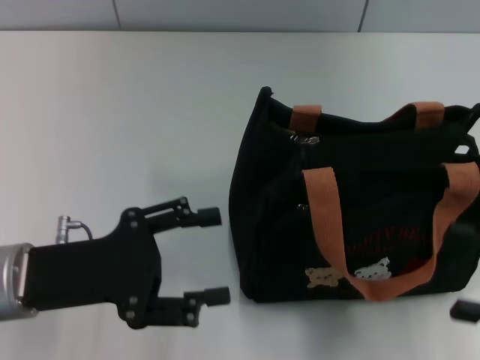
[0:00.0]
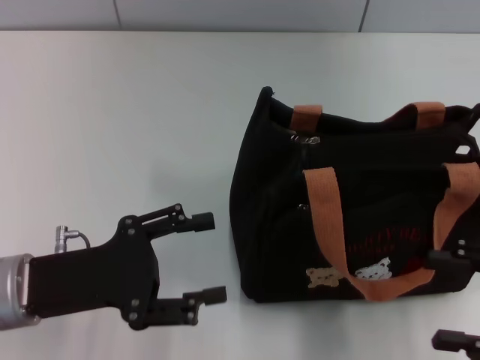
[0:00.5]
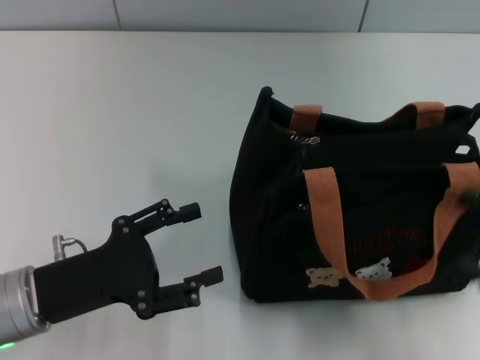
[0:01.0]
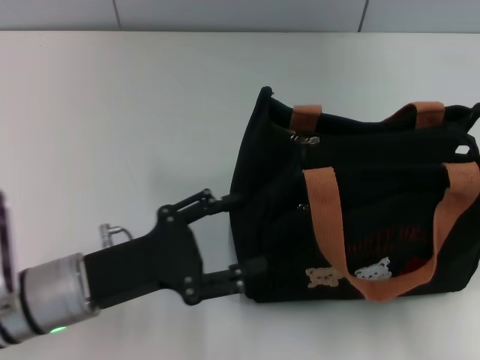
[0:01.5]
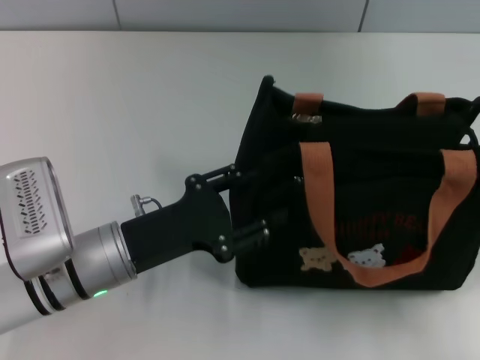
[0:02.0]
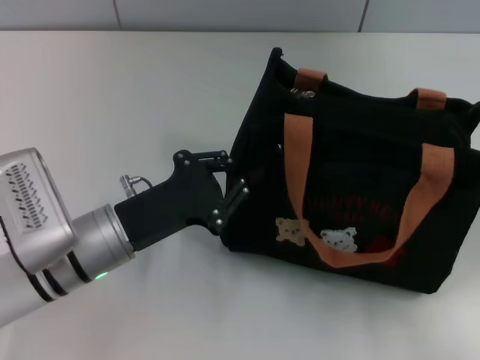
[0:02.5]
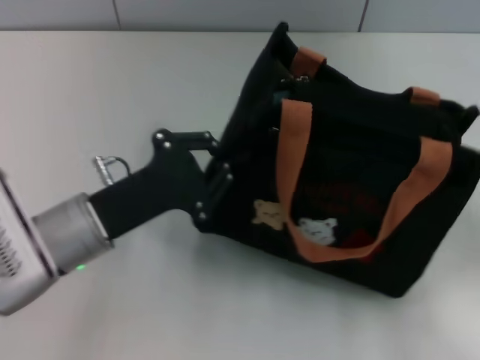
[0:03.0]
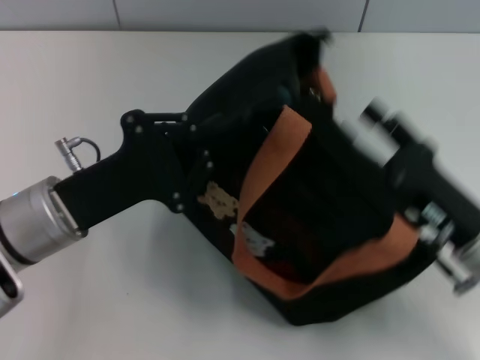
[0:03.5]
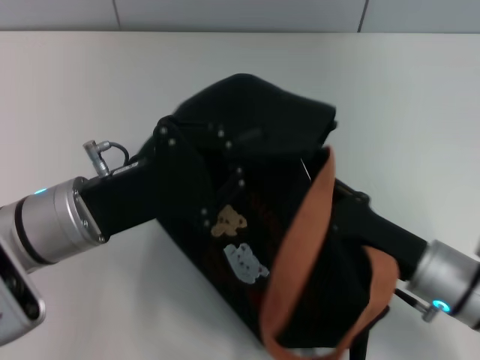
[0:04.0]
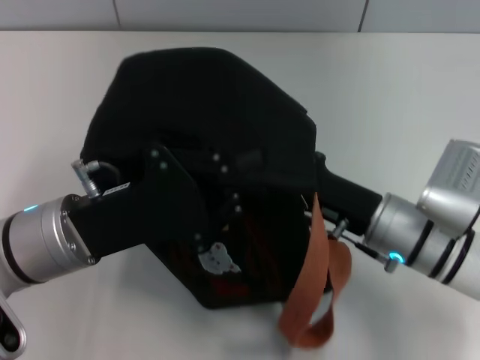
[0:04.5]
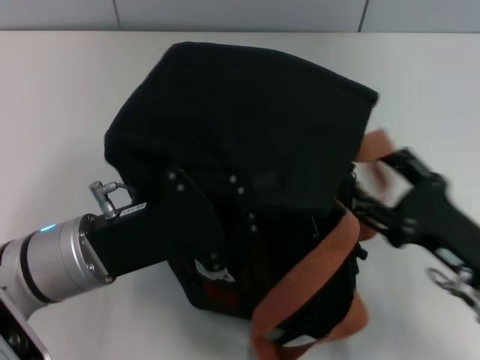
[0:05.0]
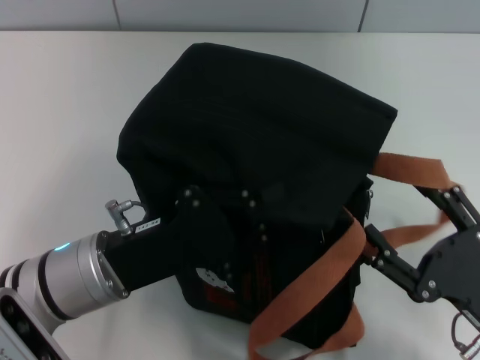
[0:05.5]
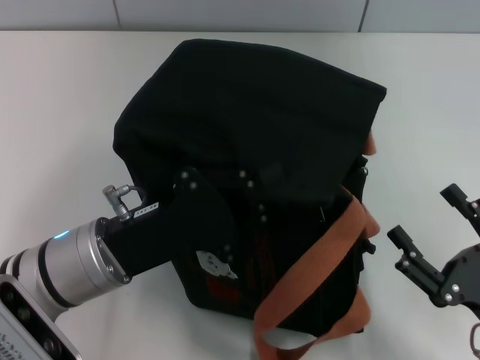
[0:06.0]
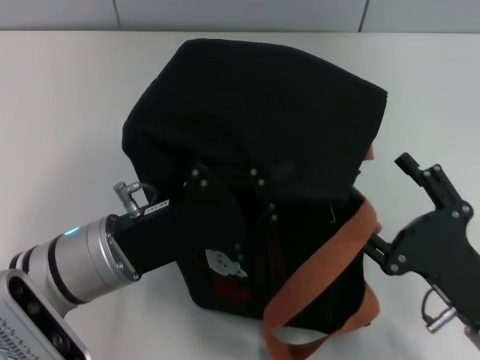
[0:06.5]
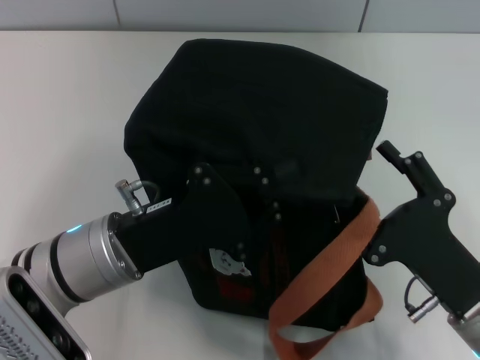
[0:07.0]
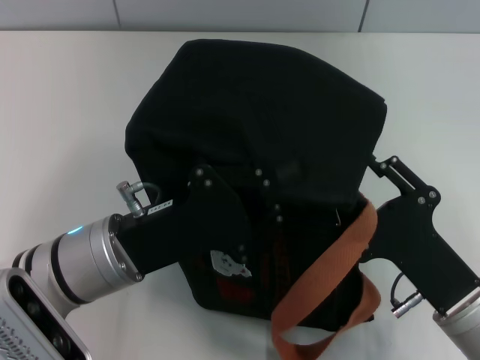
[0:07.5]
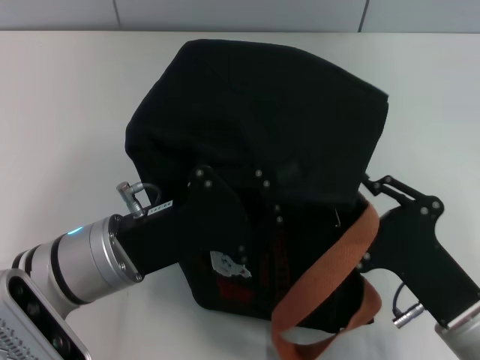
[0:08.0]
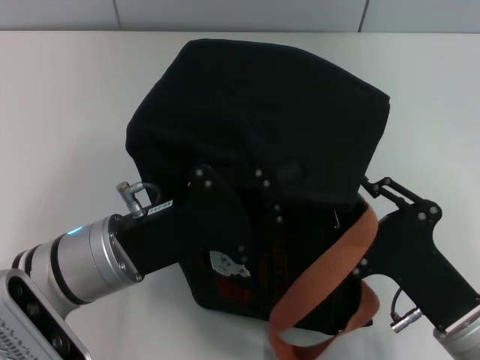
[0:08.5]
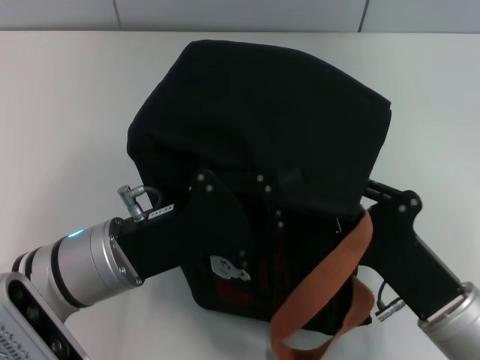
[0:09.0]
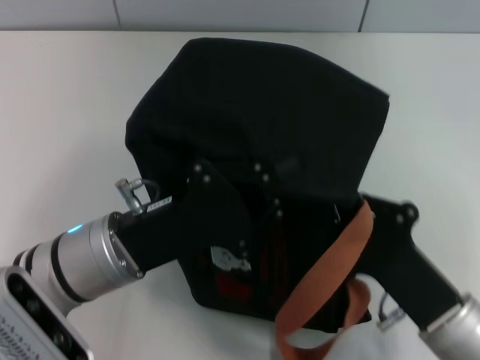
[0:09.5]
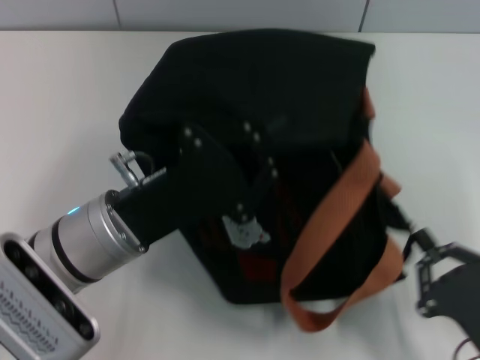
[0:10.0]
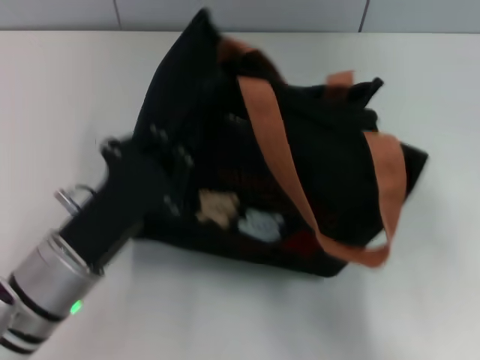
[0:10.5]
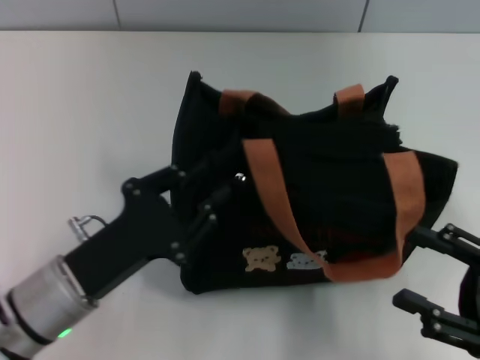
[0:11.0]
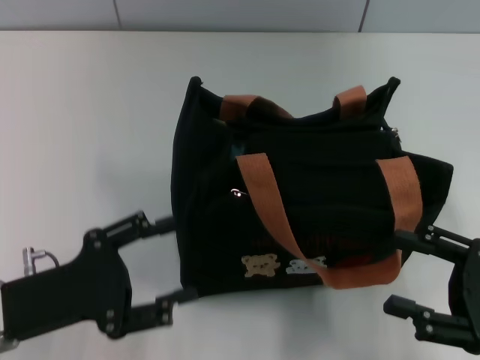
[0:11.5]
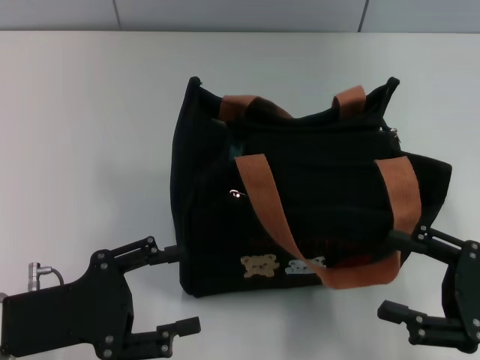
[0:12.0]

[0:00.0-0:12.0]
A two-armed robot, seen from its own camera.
Step, 0.0 to 10.0 s: Pull open the zipper with your right hand.
Step, 10.5 to 11.0 s: Grab the bag with your left hand.
0.0 to 2.0 s: The left gripper moves to the right, some 5 cm.
2.0 to 4.0 s: The left gripper is displaced upward by some 5 cm, and closes up, while the right gripper goes about 20 cm to the left, downward and forward.
4.0 to 6.0 s: The right gripper goes some 10 cm backward and to the right.
6.0 to 8.0 s: The right gripper moves to the left, some 5 cm, and closes up.
8.0 to 10.0 s: The right gripper shifts some 5 cm backward.
10.0 to 12.0 s: The left gripper goes some 10 cm to the left and backward, and opens; the right gripper shifts approximately 10 cm forward, upward and to the right, and opens its fingers.

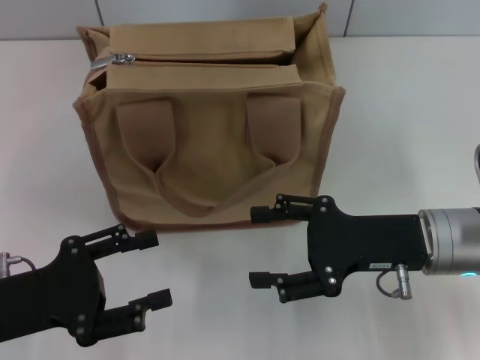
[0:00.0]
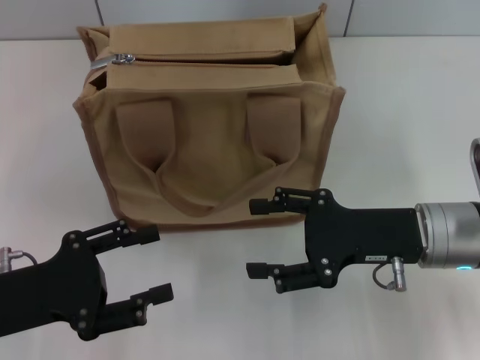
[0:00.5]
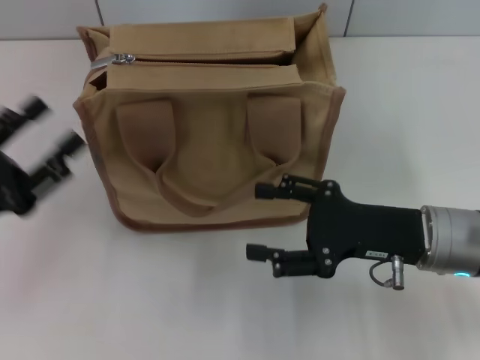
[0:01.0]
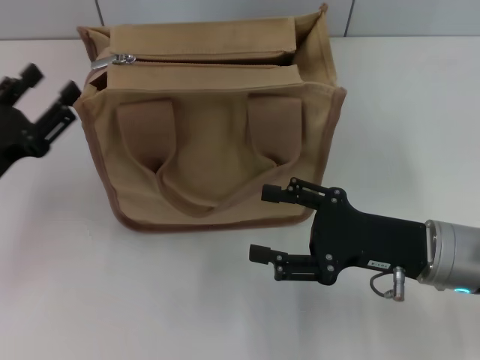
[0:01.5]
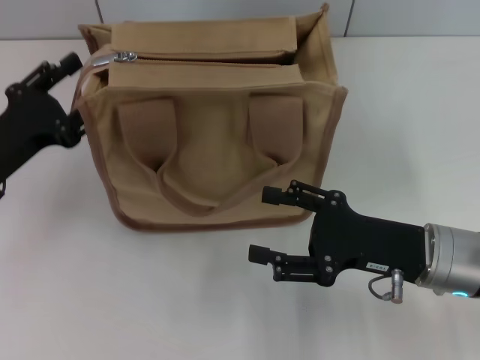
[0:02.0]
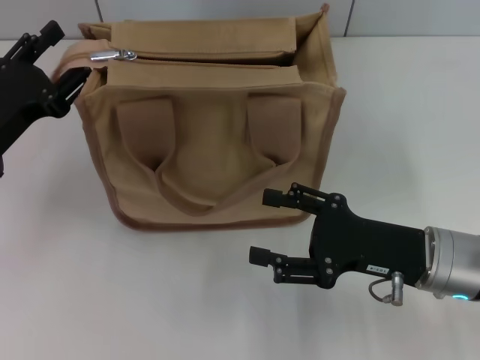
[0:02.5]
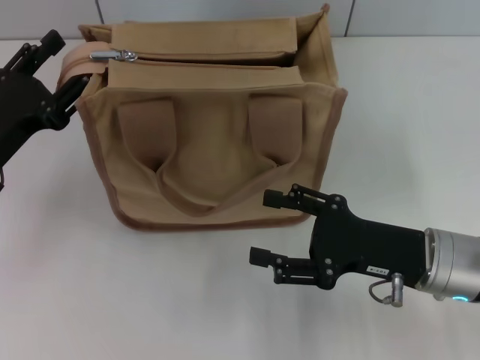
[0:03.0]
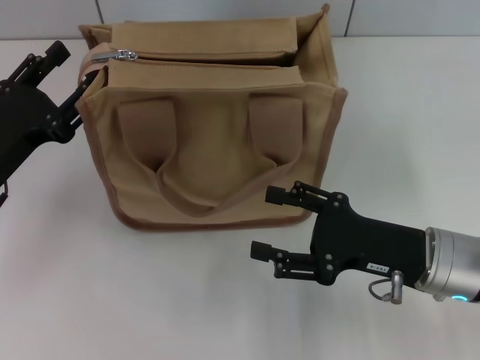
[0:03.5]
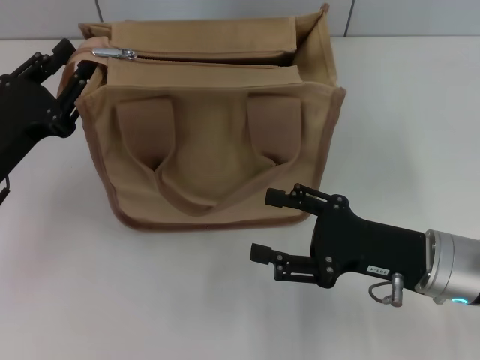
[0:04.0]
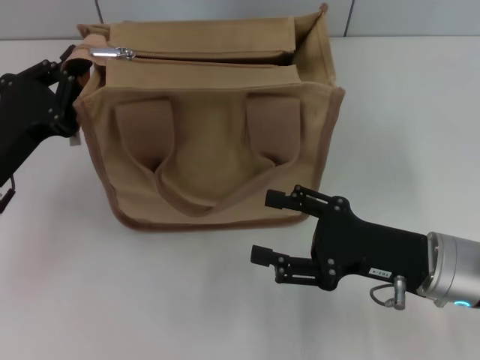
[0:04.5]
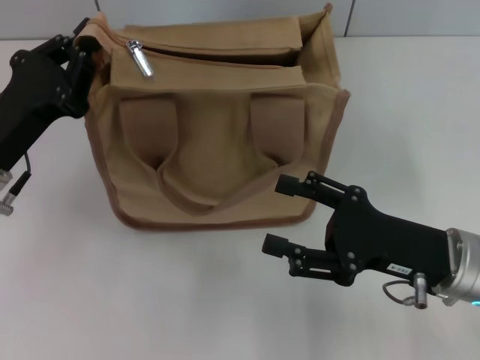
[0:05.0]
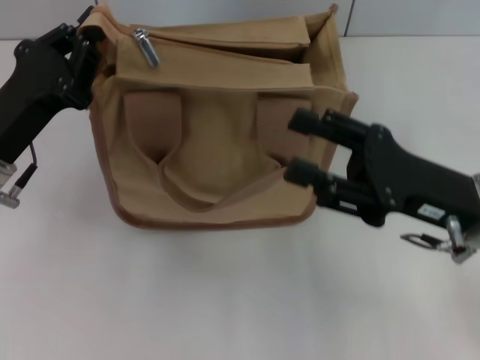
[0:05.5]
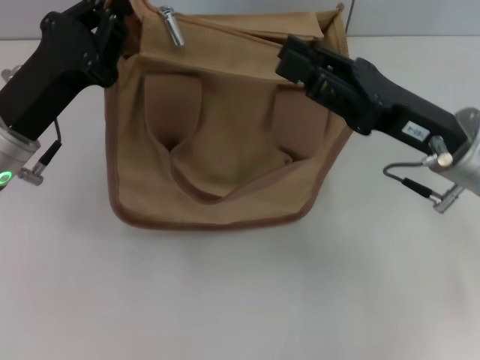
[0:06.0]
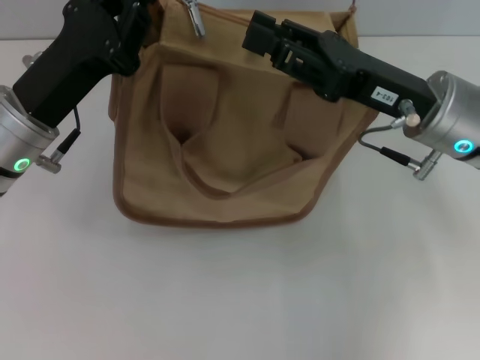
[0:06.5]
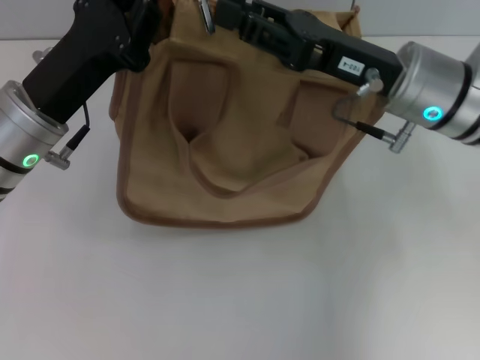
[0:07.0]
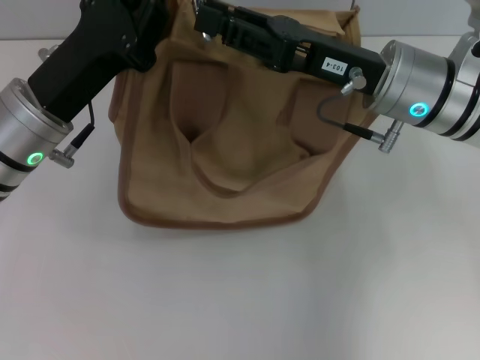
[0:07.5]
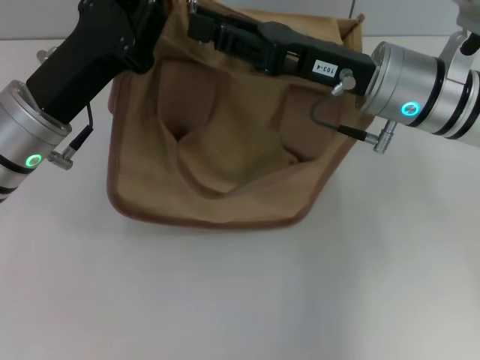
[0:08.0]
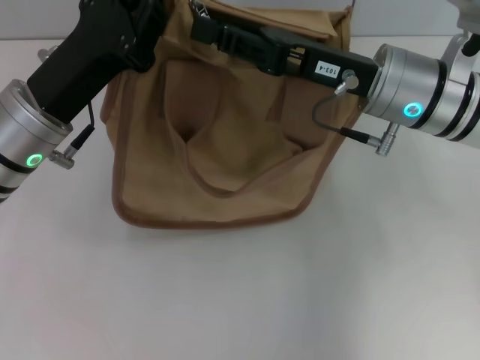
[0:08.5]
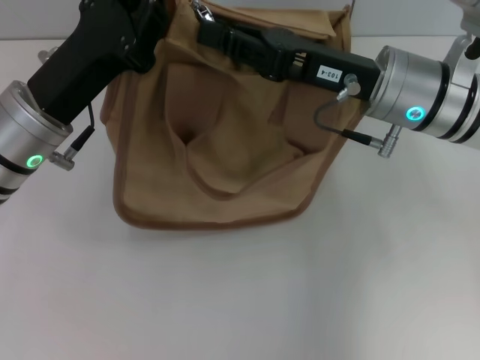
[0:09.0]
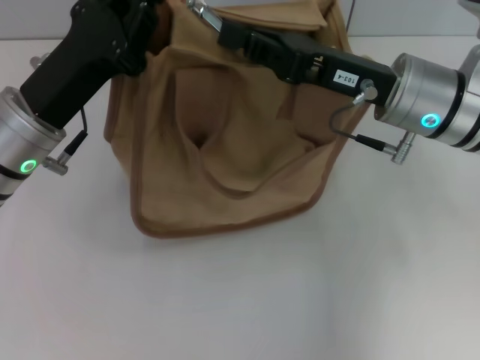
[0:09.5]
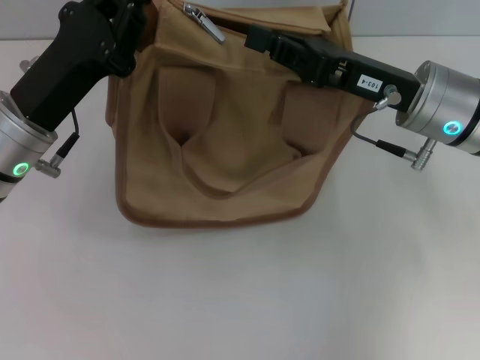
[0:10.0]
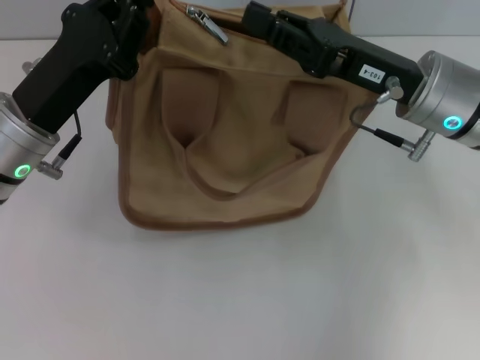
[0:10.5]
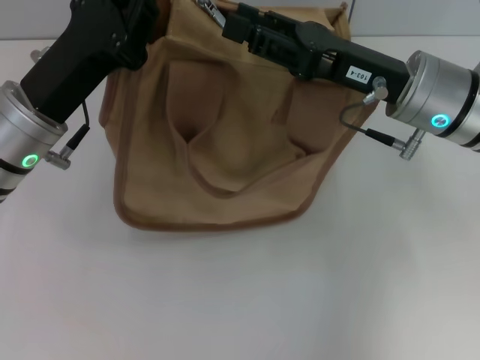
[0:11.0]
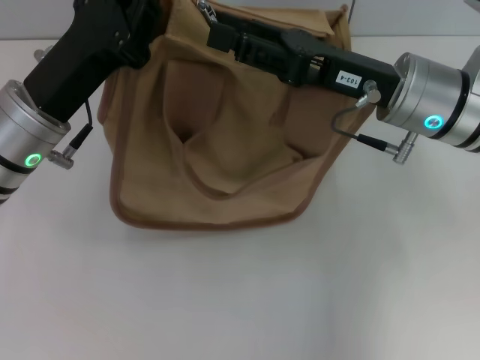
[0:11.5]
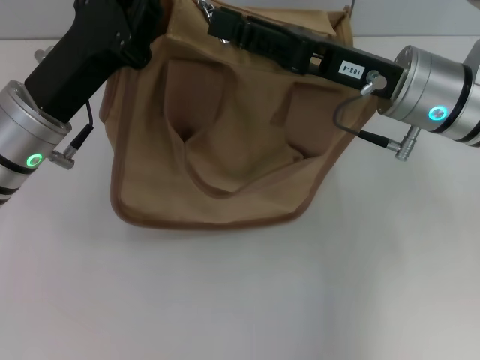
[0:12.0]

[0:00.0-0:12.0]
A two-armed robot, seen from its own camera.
0.0 to 2.0 s: The left gripper moves forward, approximately 10 cm.
2.0 to 4.0 s: The grippers move only a little.
4.0 to 6.0 s: The right gripper travels upward and forward by approximately 10 cm, and closes, while the left gripper moves roughly 5 cm, and closes.
6.0 to 8.0 s: The right gripper is displaced forward and to the left by about 10 cm.
8.0 to 10.0 s: The right gripper closes up.
10.0 to 12.0 s: The right gripper opens up.

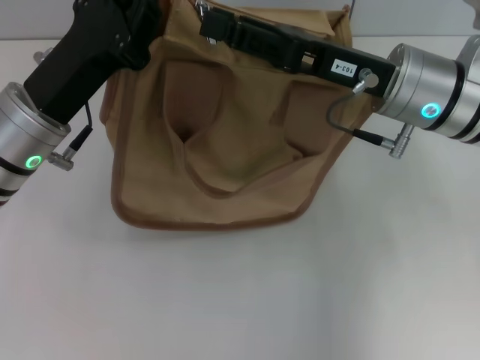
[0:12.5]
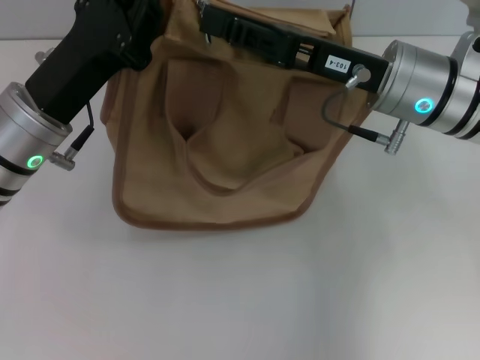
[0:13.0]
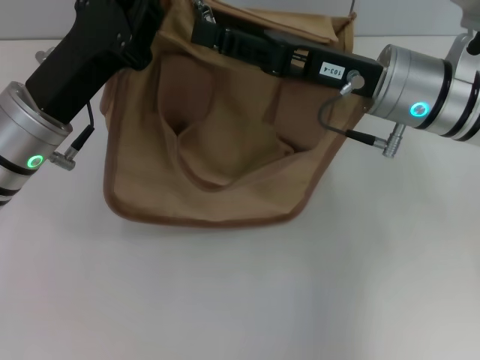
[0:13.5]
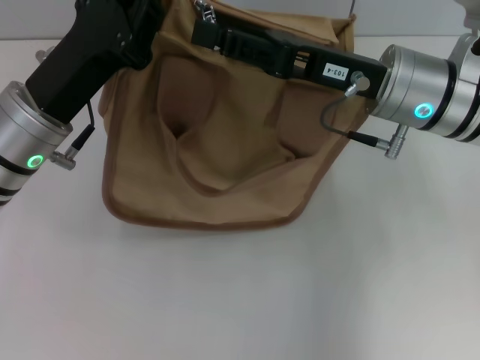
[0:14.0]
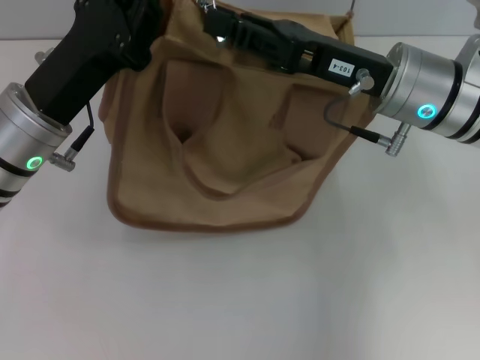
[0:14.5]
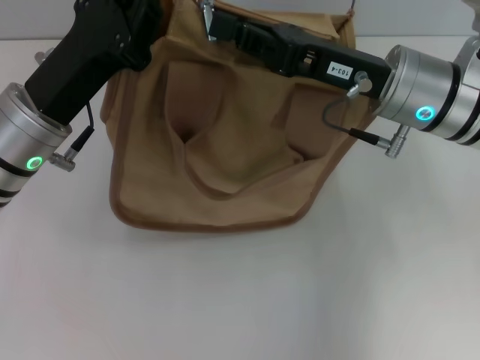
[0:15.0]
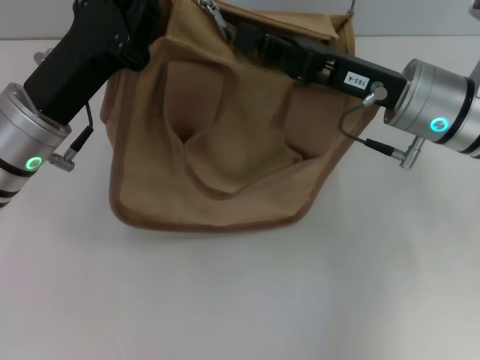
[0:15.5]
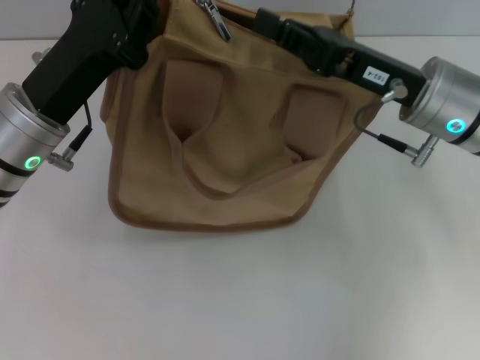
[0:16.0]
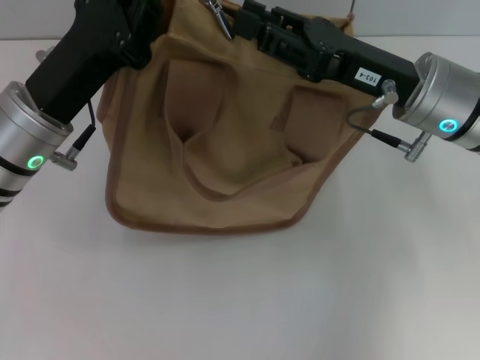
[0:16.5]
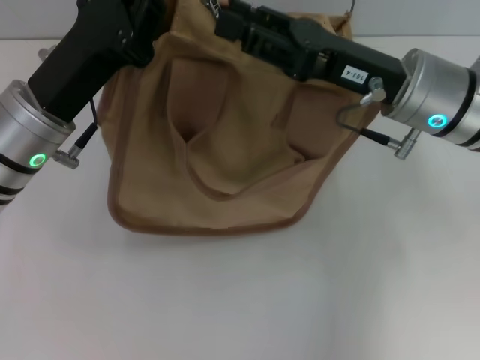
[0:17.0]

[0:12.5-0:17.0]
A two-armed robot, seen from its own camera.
12.5 to 14.5 s: Both grippers stay put.
14.5 to 17.0 s: The right gripper closes, then opens again.
